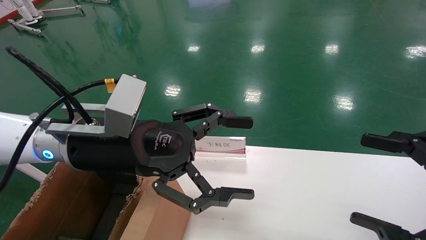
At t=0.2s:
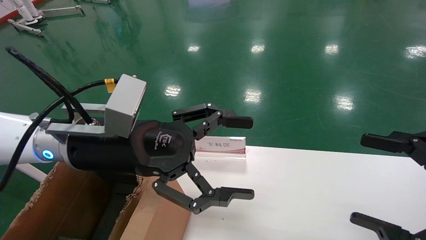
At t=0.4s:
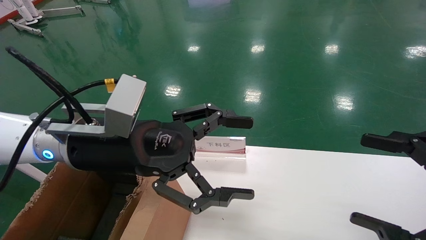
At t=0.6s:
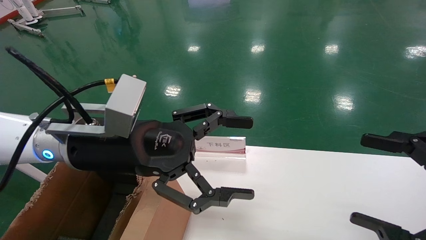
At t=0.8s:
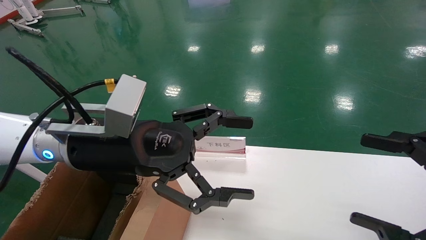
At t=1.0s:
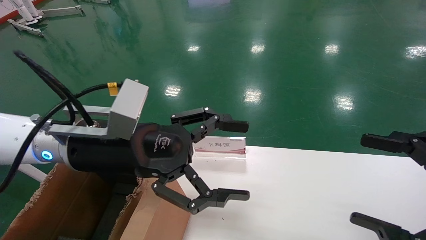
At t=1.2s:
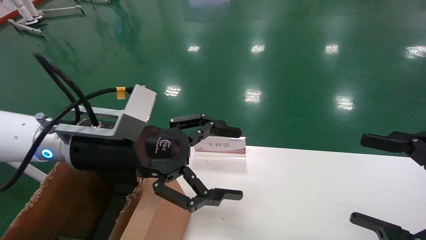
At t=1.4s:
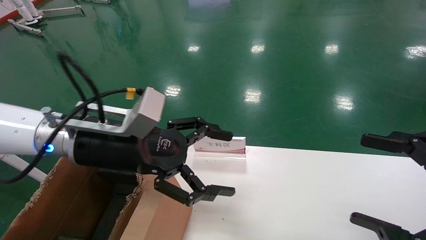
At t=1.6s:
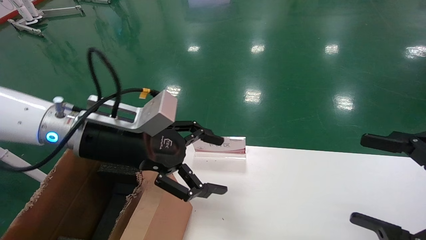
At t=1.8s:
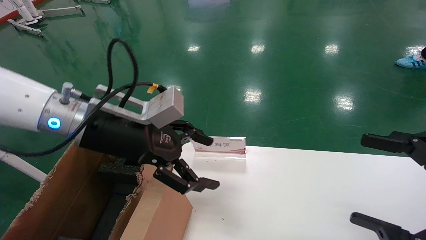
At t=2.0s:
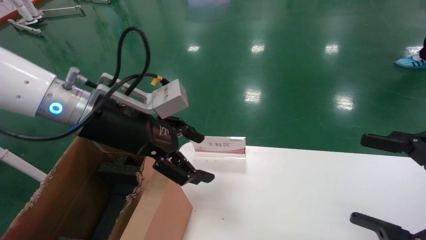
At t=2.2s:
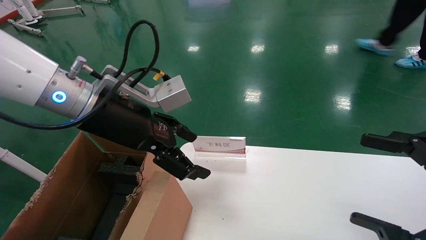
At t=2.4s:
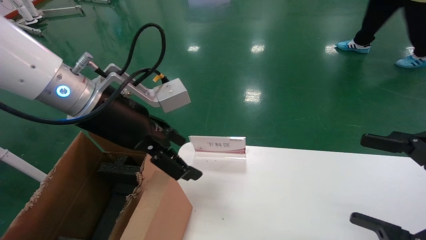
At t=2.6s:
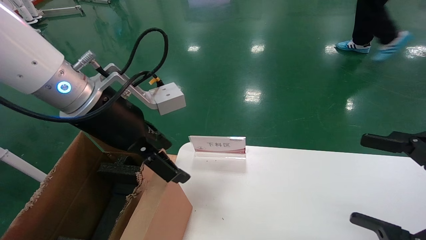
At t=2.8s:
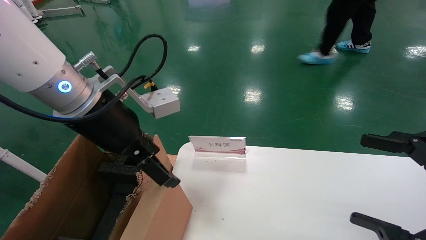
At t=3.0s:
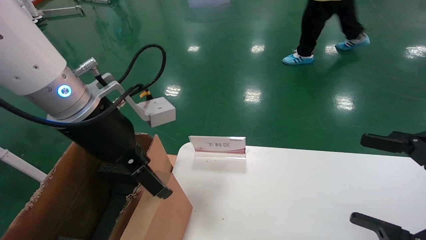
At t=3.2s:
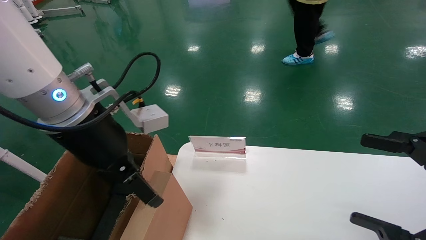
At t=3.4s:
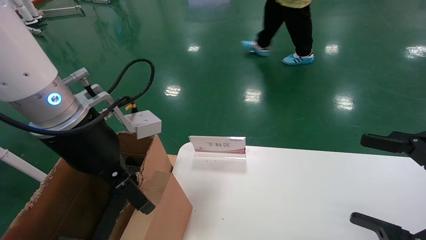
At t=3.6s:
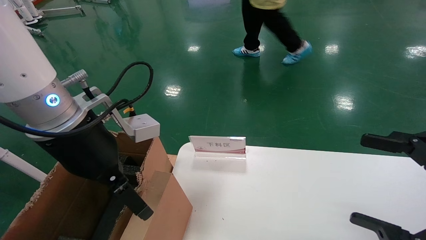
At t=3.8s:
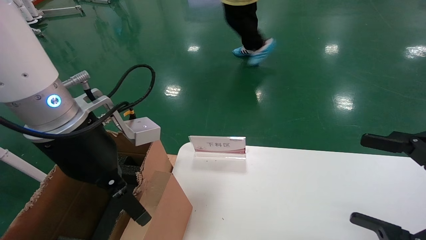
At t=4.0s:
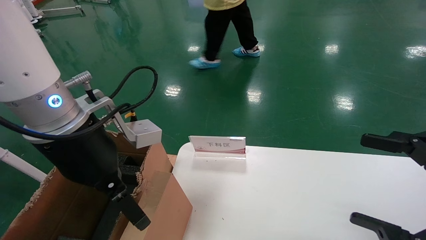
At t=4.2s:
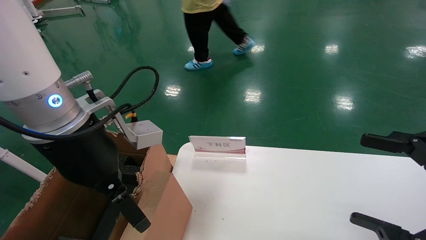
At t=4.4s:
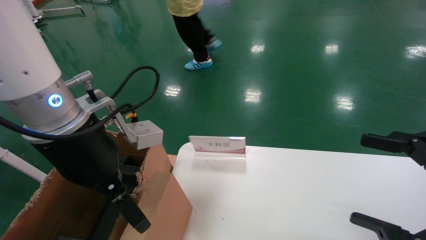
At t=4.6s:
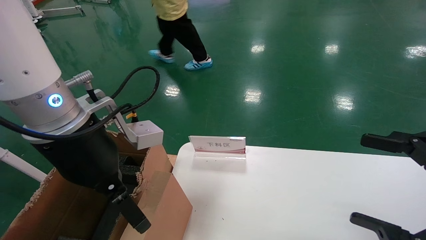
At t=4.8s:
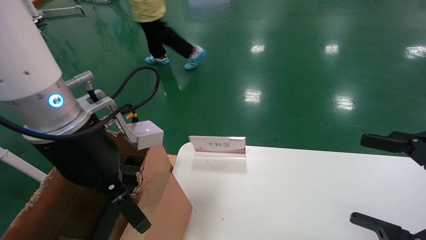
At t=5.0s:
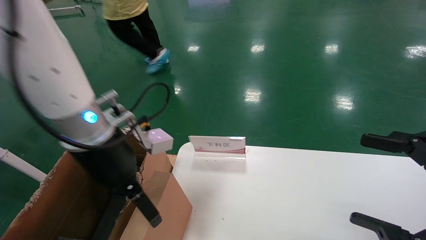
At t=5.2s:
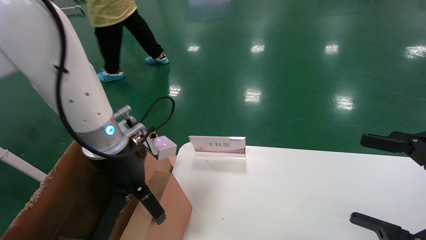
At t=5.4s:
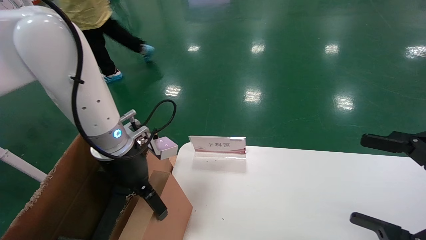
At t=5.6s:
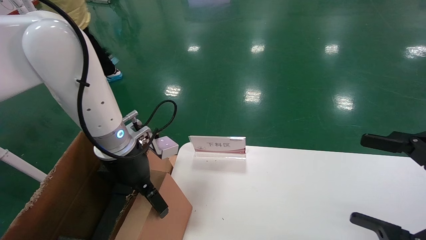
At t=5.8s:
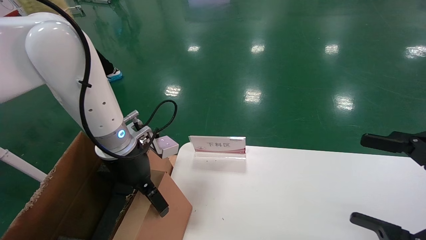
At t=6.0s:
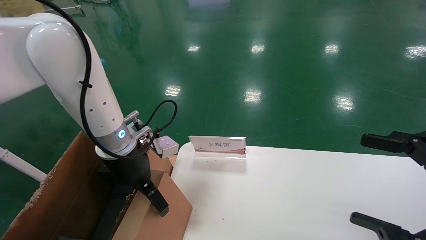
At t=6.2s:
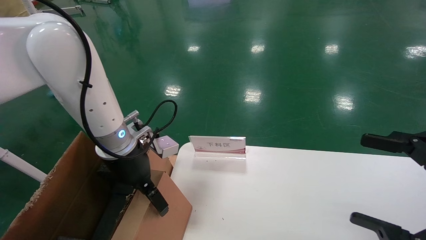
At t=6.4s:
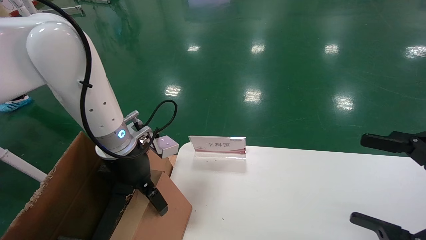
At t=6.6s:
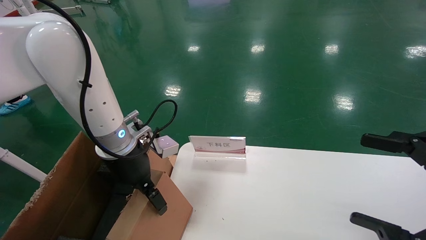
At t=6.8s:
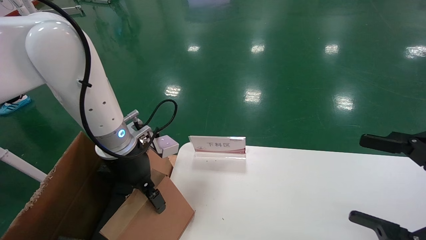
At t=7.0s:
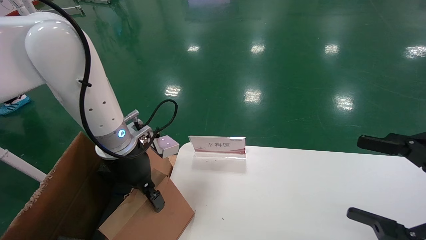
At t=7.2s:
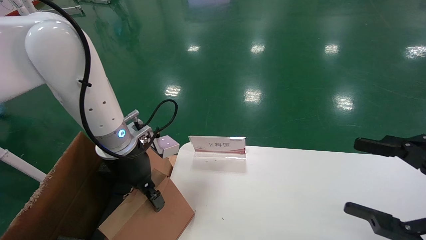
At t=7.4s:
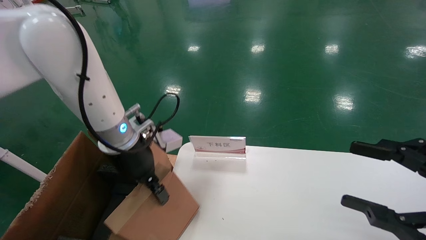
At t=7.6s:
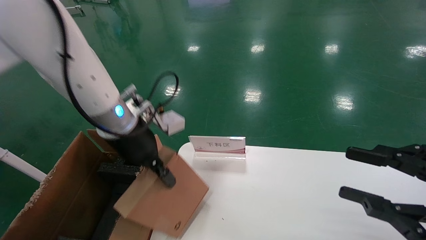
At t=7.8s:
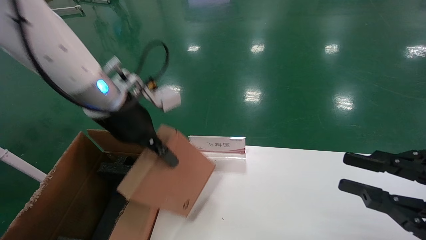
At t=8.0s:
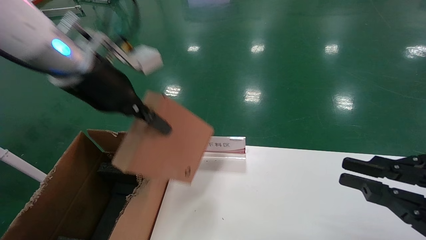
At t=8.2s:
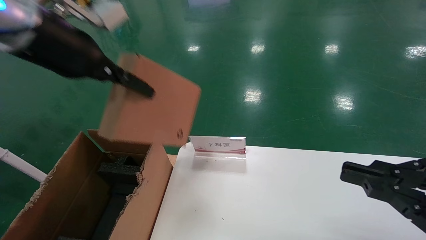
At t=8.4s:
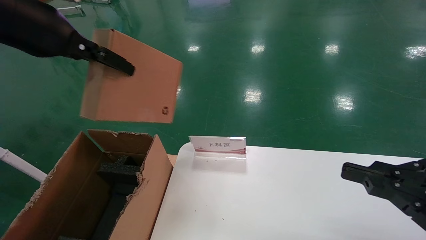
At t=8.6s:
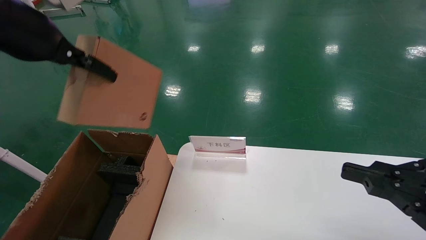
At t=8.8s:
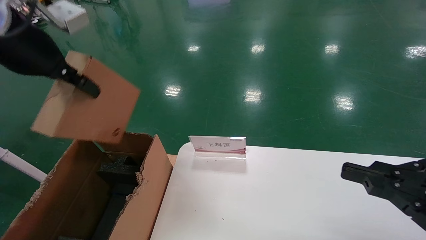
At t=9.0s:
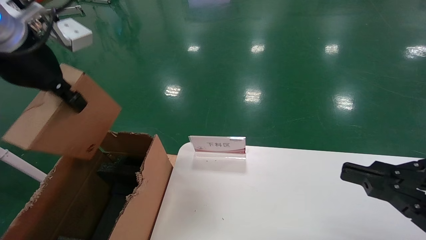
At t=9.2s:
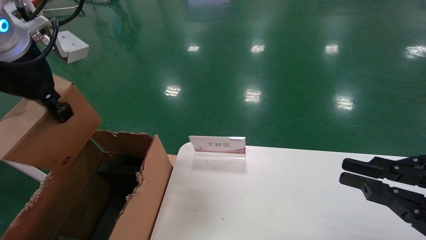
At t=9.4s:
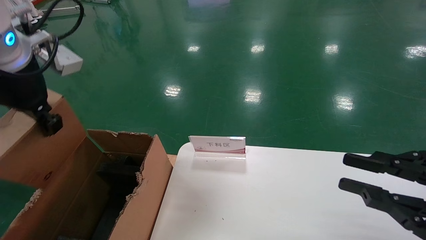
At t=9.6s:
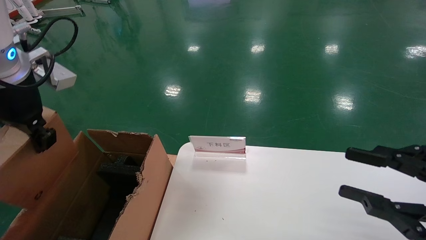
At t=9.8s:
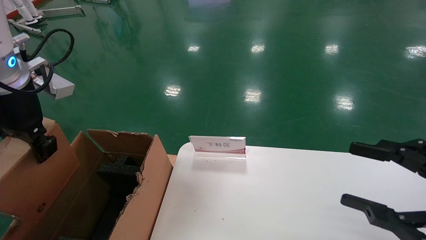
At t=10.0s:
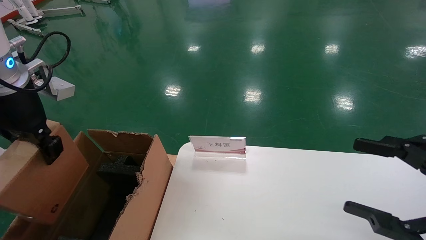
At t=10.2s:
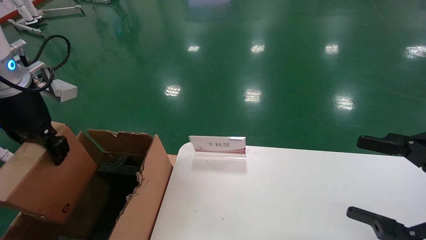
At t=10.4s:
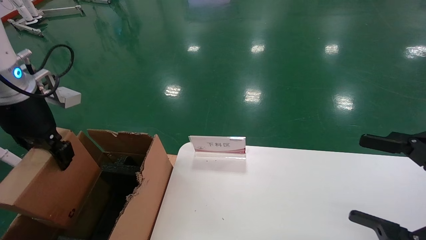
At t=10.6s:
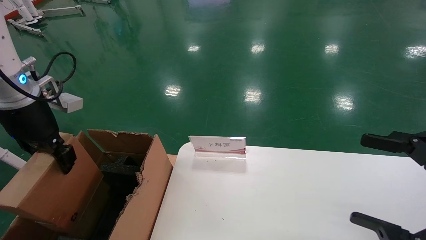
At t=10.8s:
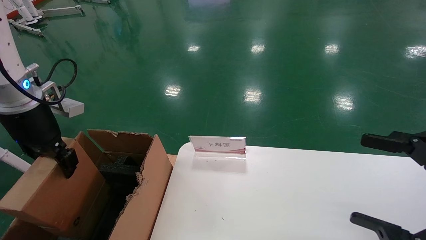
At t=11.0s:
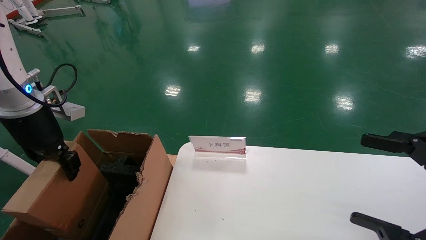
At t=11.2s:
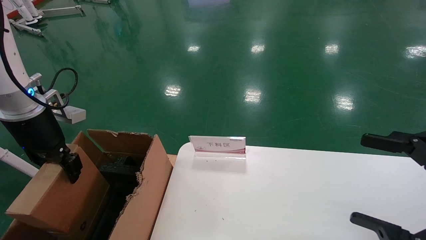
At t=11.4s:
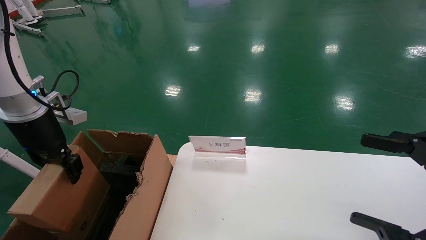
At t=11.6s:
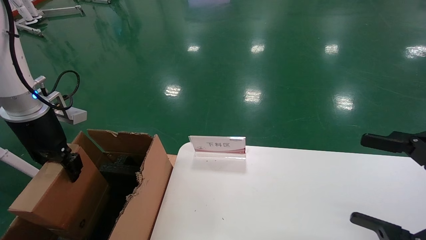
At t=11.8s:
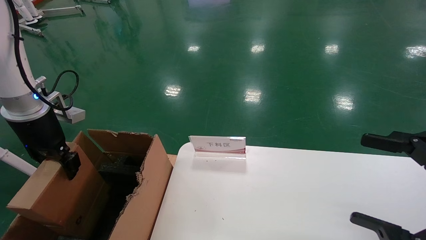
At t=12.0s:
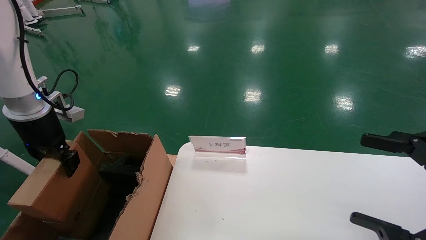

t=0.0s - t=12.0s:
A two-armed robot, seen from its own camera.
Task of the whole recording: pick up the small cardboard box and load it into the large cardboard box.
Step, t=0.0s - t=6.6s: Grasp the paper box.
t=1.6s - t=3.0s: The left gripper moves roughly 5 cm.
t=3.0s - t=4.4s: The grippers make only small movements.
t=4.4s - t=6.0s: The left gripper travels forward and downward by about 15 cm.
t=6.0s - t=7.6s: The right gripper closes up. Meanwhile the left gripper heads upward, covering roughly 5 cm, and closes its fingers.
t=7.6s - t=9.0s: The right gripper closes. The left gripper moves upward, backward and to the left, some 15 cm.
t=9.0s - t=10.4s: The right gripper opens its fingers, while the left gripper travels downward and to the left by approximately 10 cm.
t=10.4s - t=12.0s: The left gripper moves downward and to the left, some 10 cm.

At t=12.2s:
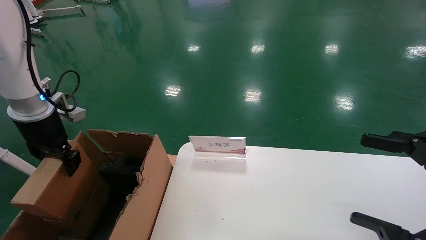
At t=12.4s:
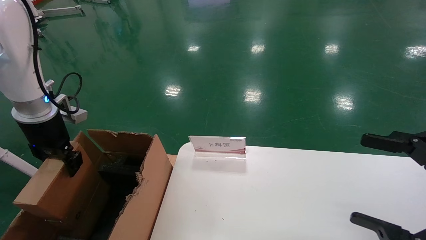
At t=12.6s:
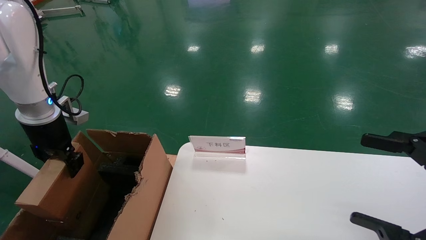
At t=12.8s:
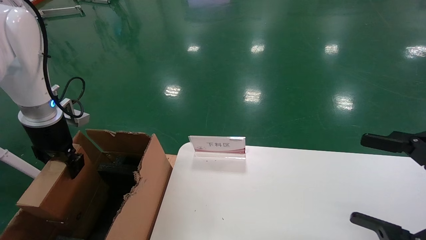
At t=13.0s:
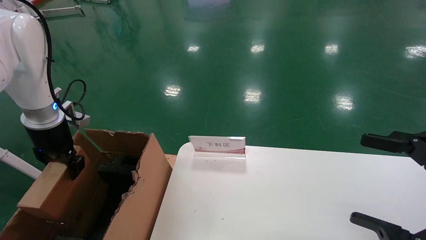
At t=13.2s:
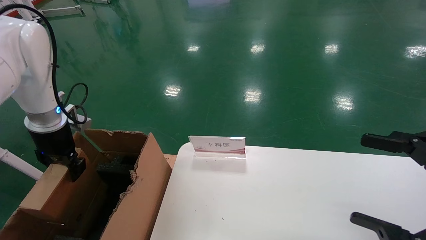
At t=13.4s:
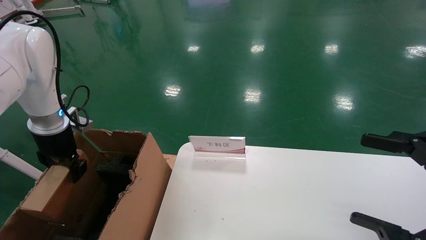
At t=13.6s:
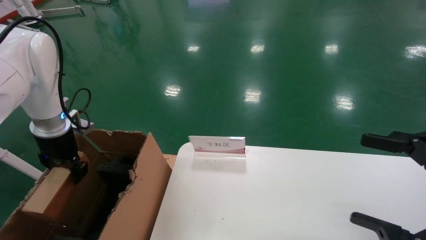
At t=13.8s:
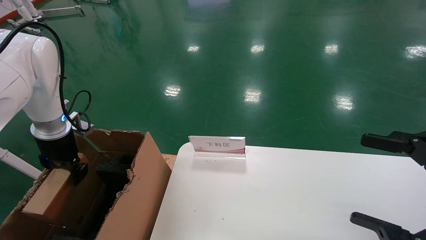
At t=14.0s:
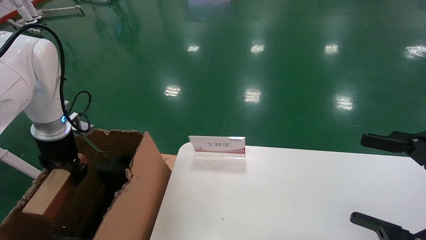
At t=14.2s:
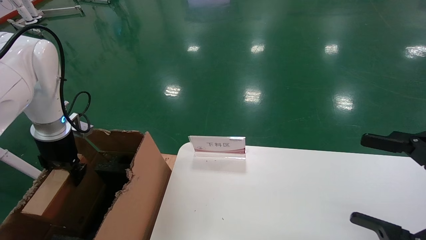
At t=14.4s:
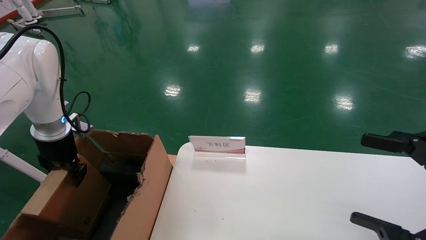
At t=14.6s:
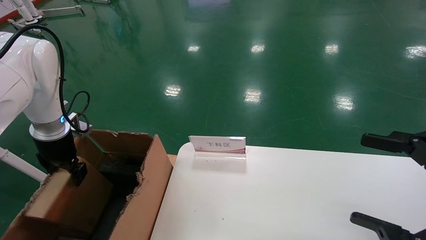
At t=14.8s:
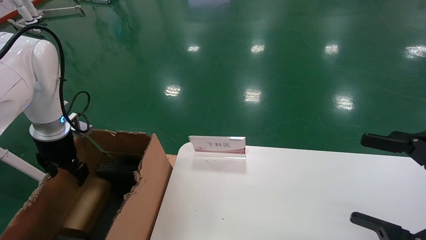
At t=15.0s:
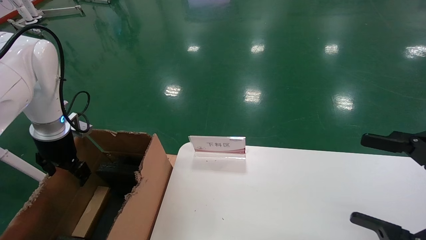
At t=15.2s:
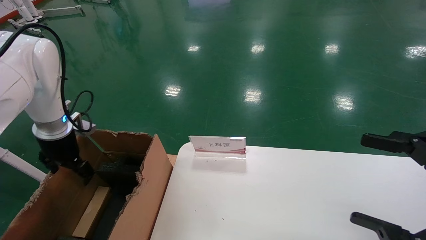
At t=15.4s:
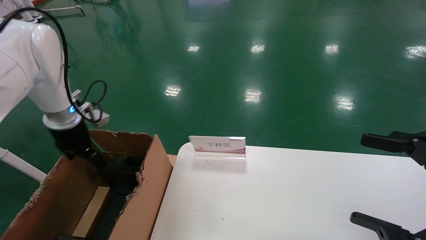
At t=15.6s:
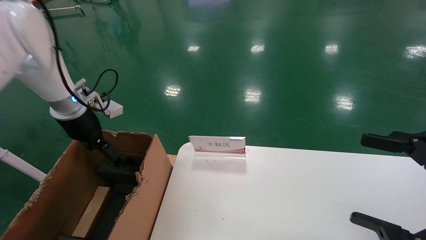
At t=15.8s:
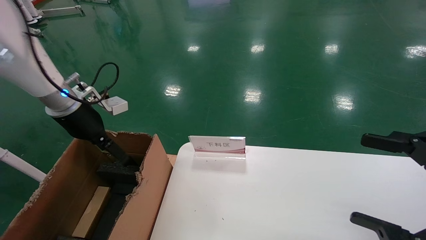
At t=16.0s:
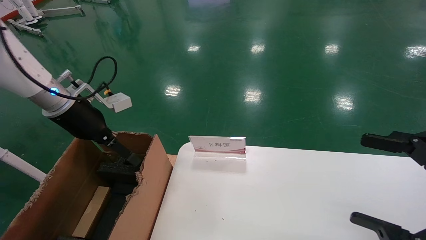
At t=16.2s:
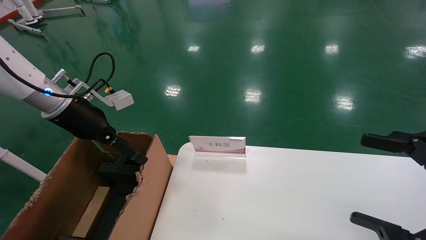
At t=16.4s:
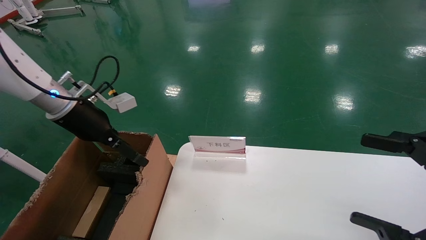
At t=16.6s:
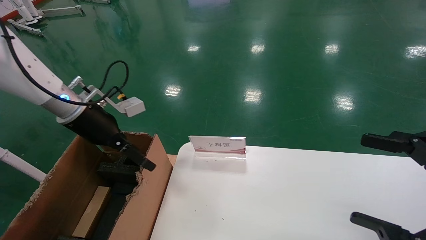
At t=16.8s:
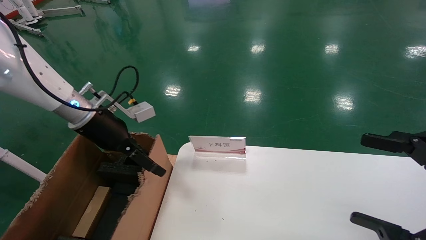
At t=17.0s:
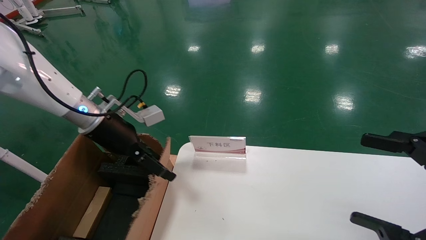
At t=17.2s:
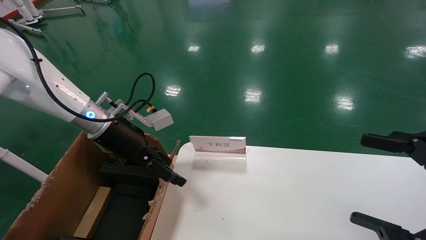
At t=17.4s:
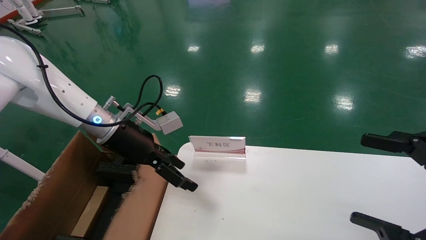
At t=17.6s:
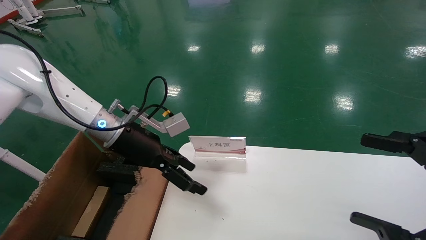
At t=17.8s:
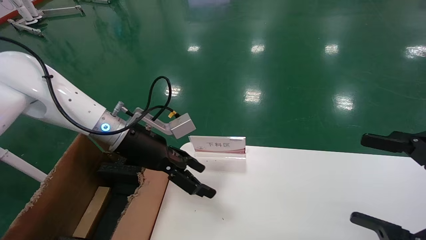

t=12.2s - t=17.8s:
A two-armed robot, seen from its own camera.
Task of the whole recording: pick up the small cardboard box and load it into the large cardboard box.
Step, t=12.2s - t=14.8s: Place the paper box in the another big box.
t=12.2s - t=13.6s: The left gripper goes about 5 cm downward.
t=13.6s - t=15.0s: The left gripper opens.
t=15.0s - t=16.4s: The left gripper heads to the right and upward, covering roughly 10 cm, and opens up.
t=16.4s - t=17.8s: The left gripper moves to the right, some 10 cm.
